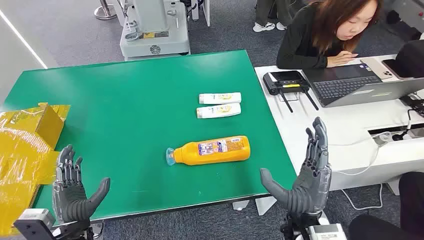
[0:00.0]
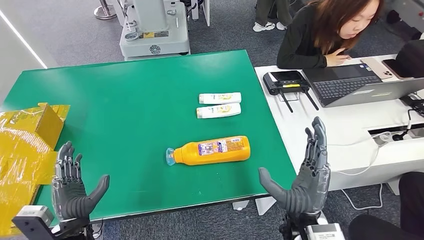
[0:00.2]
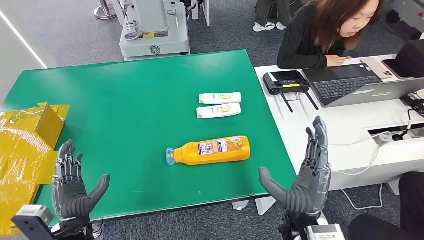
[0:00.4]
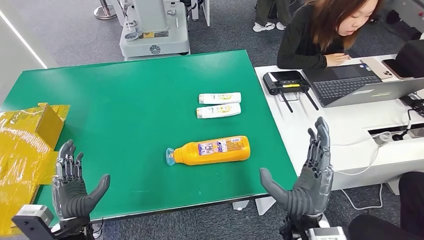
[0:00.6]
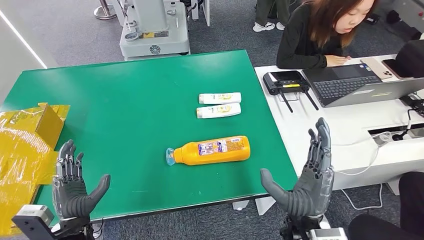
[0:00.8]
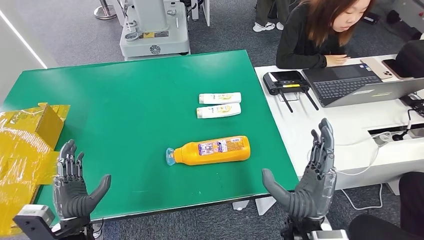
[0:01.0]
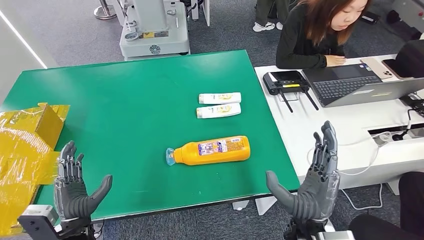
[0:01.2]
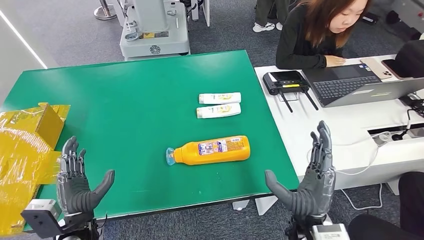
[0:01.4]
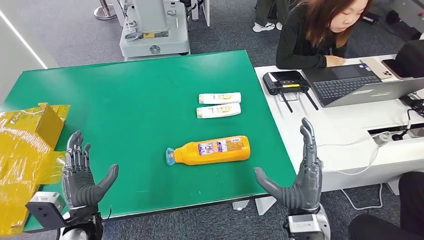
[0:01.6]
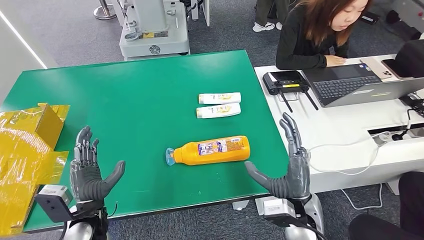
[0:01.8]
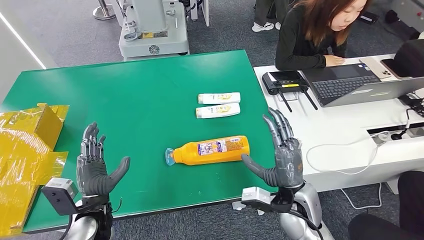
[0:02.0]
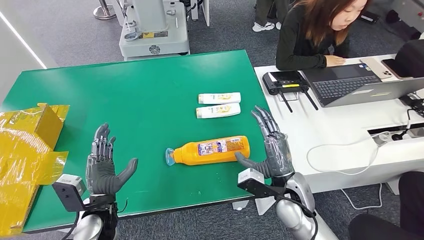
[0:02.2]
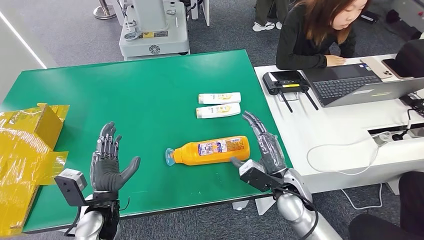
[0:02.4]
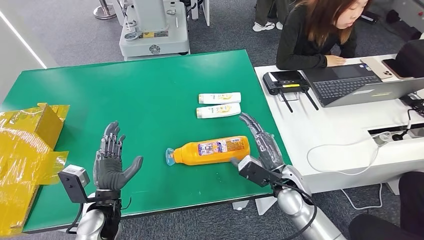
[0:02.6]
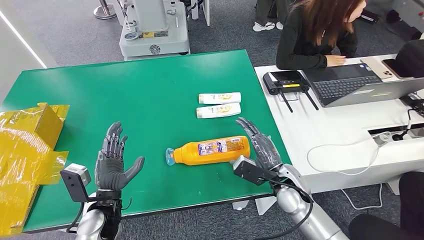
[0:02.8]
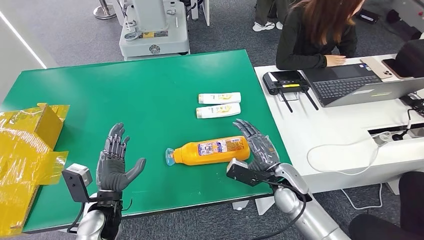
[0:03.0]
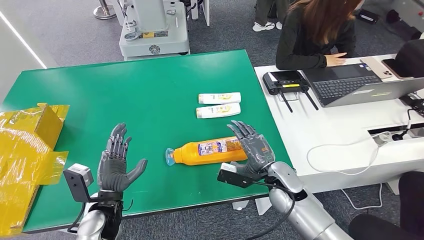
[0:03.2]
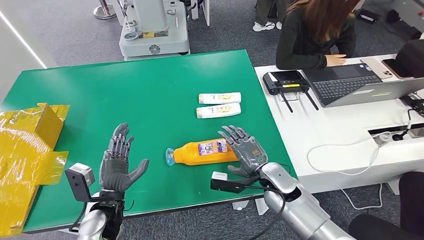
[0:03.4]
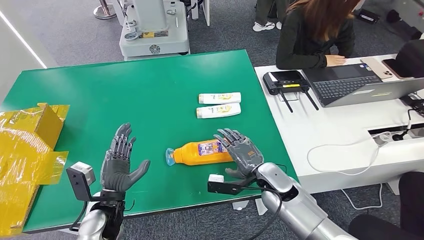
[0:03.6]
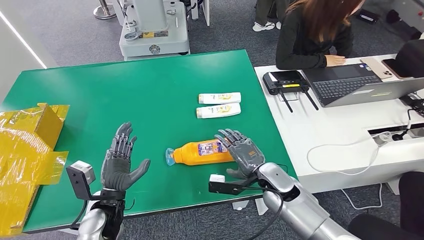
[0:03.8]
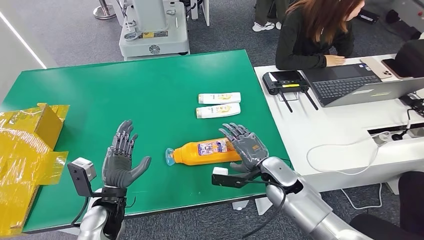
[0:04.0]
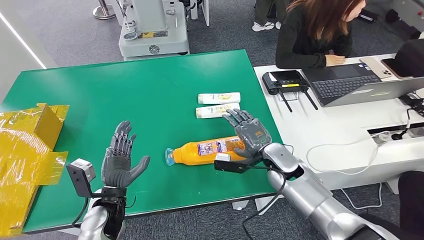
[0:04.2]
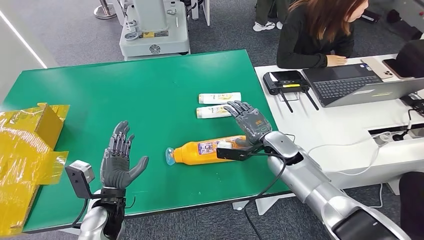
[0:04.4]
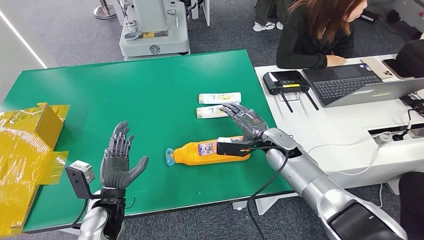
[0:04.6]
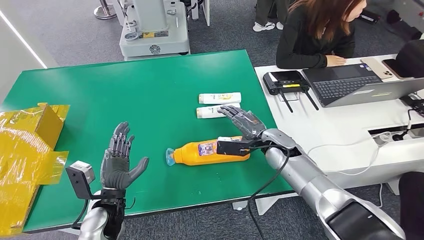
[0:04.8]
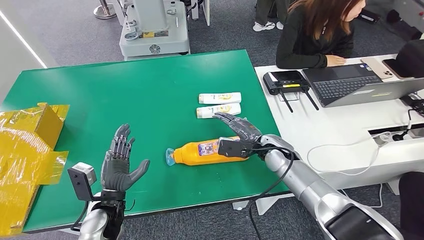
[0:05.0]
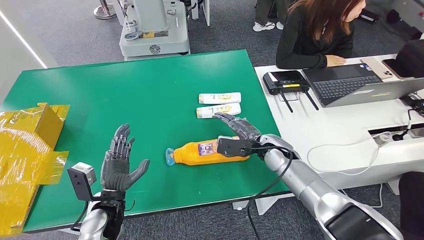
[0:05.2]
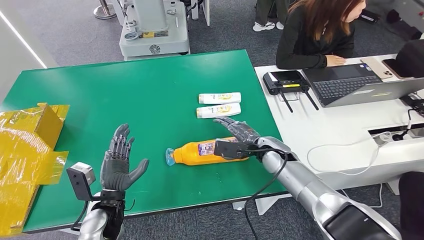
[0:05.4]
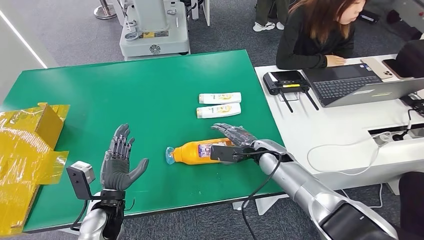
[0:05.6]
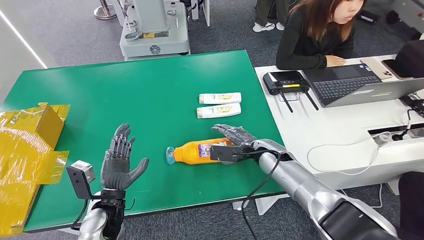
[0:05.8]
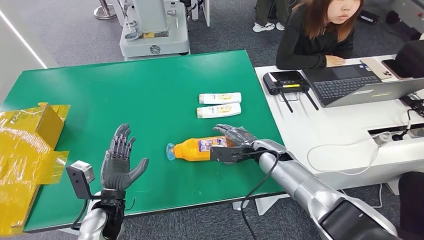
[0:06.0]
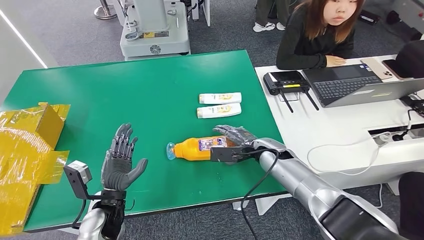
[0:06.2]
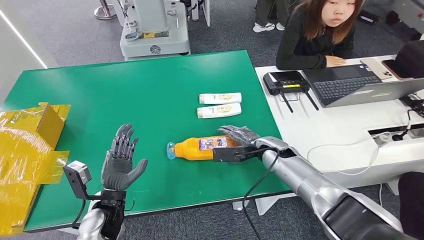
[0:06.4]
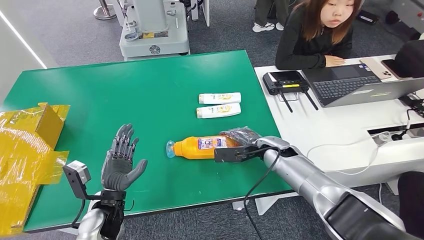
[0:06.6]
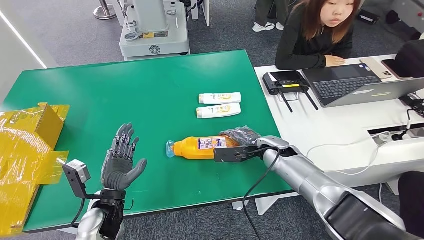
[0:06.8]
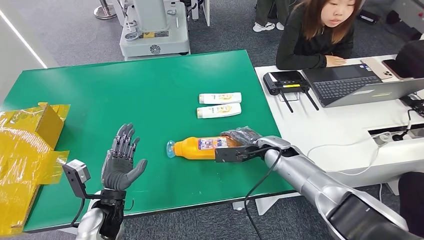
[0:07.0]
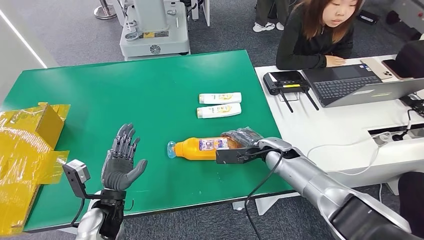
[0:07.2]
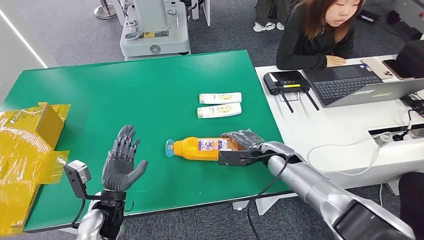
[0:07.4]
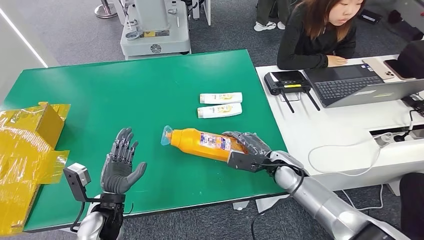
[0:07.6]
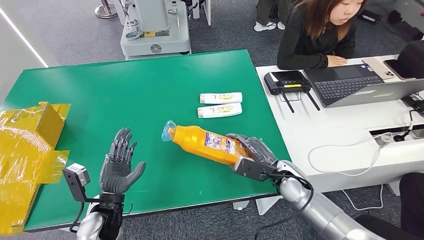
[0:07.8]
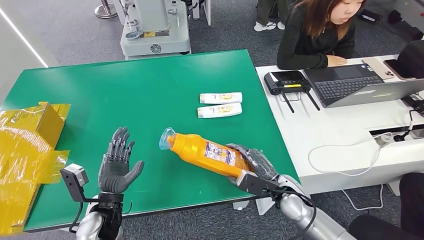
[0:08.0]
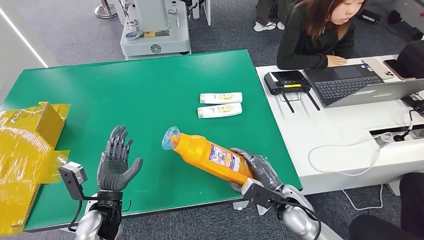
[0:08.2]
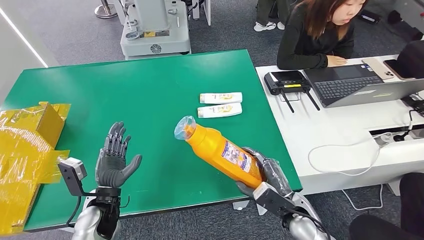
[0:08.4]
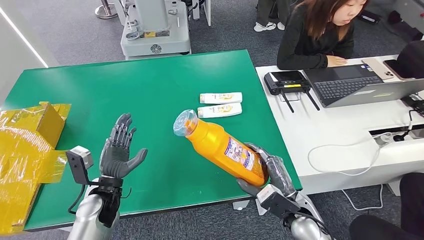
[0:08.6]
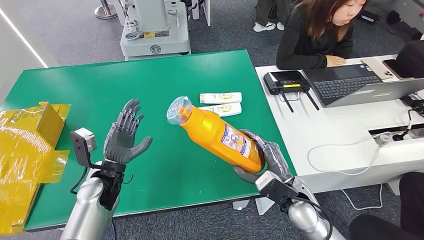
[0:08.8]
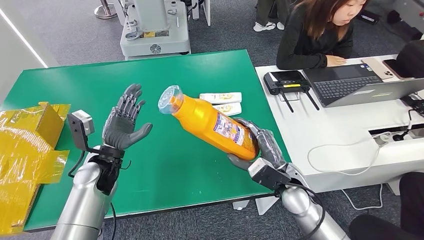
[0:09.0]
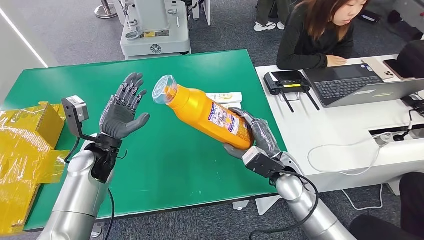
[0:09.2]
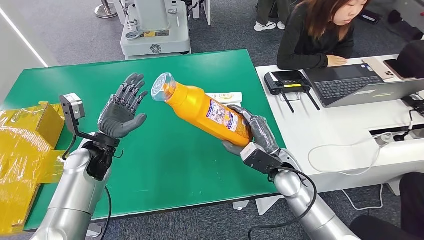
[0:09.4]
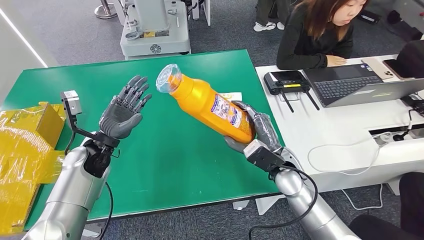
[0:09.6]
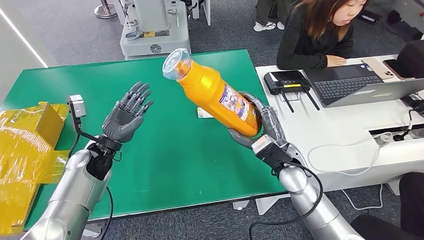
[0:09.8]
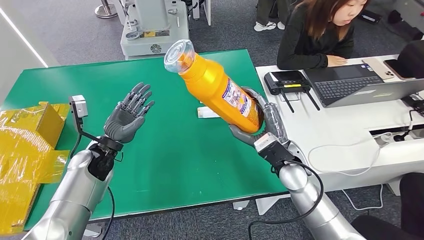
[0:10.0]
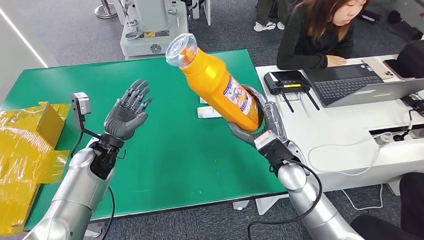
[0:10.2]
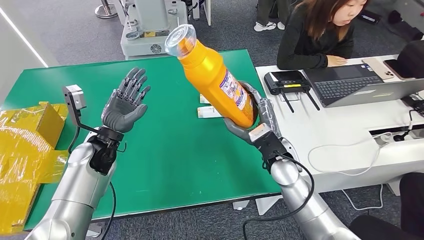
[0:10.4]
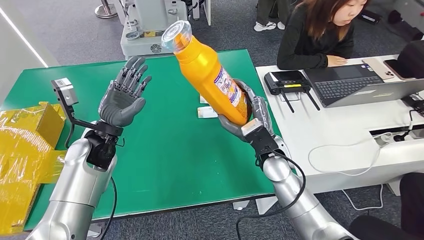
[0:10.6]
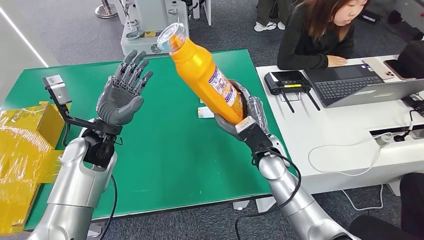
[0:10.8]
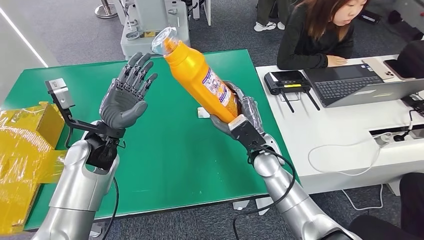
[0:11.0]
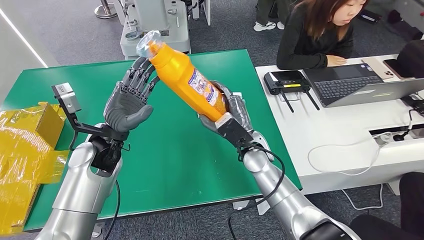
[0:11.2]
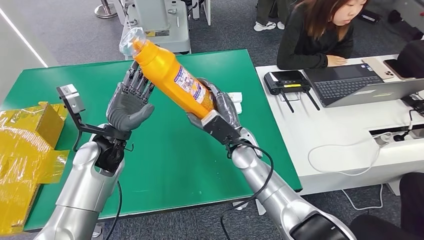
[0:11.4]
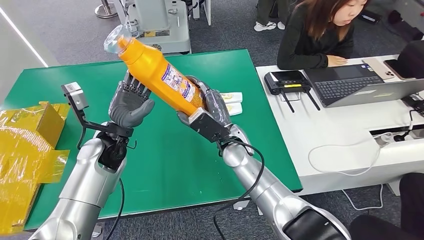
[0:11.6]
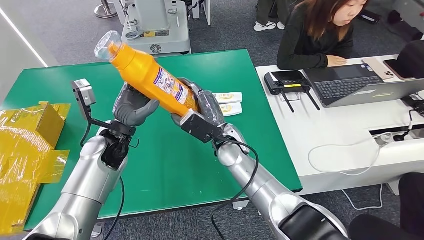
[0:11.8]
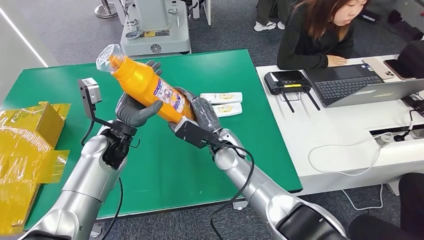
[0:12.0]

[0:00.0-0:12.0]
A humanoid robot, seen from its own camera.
Step, 0:00.0 to 0:08.8: Pick up the bottle from the table.
0:01.6 to 0:03.0: The right hand moves forward, some 10 cm.
0:03.0 to 0:04.4: The right hand moves forward, approximately 10 cm.
0:06.0 to 0:07.6: The right hand changes place by about 5 cm.
0:07.6 to 0:09.0: The right hand heads backward, covering about 5 cm. The left hand travels forward and upward by about 10 cm.
0:09.0 to 0:10.4: The right hand moves forward, approximately 5 cm.

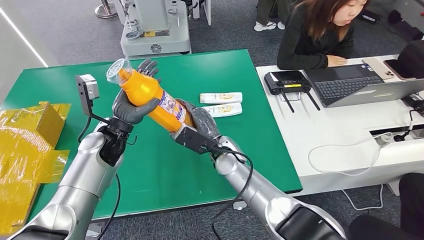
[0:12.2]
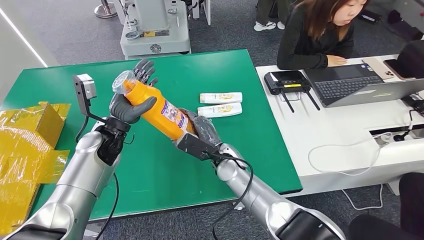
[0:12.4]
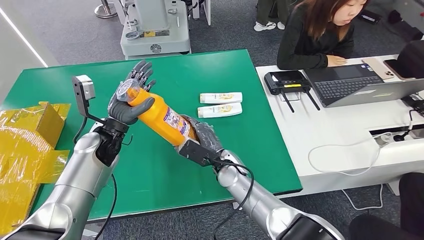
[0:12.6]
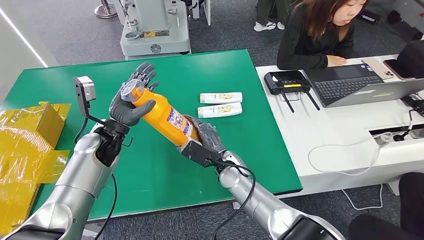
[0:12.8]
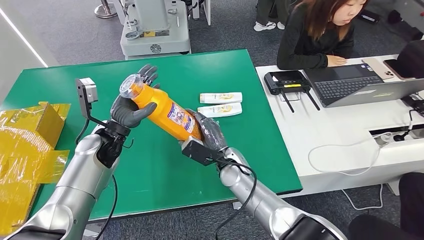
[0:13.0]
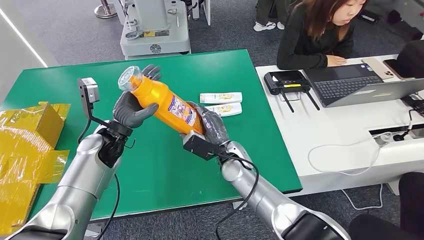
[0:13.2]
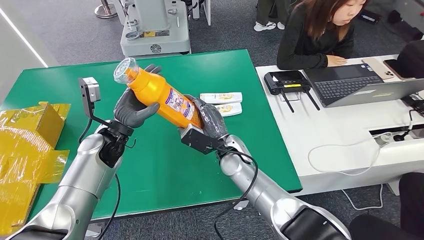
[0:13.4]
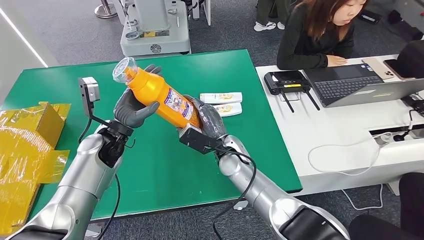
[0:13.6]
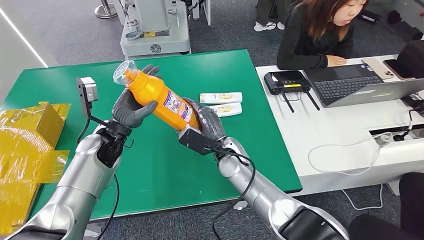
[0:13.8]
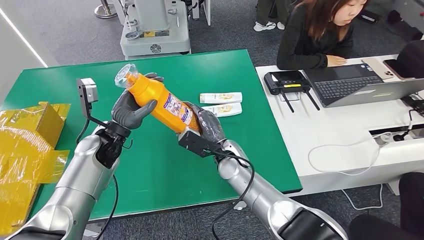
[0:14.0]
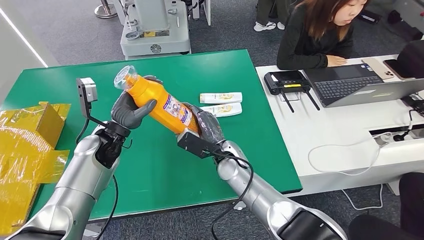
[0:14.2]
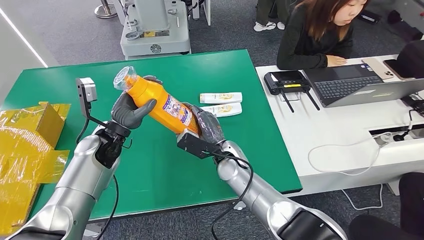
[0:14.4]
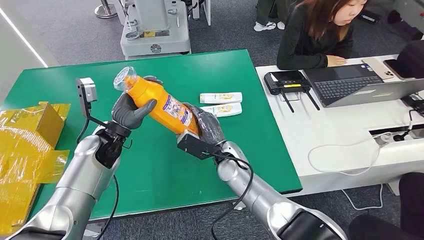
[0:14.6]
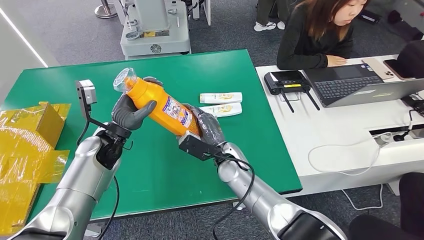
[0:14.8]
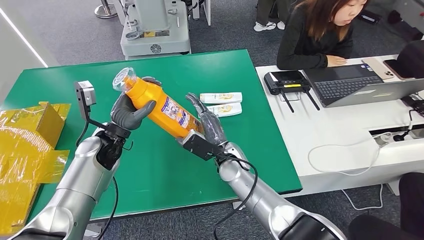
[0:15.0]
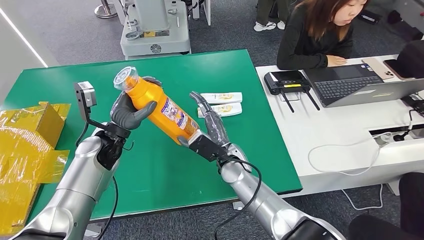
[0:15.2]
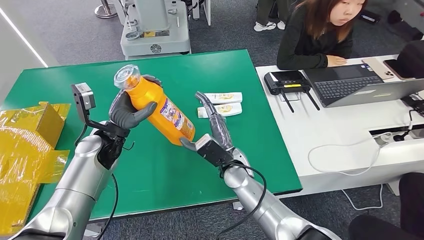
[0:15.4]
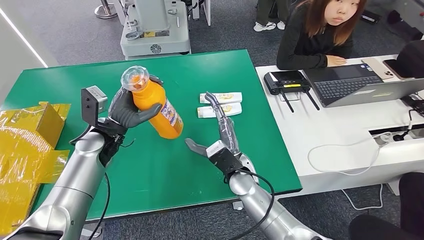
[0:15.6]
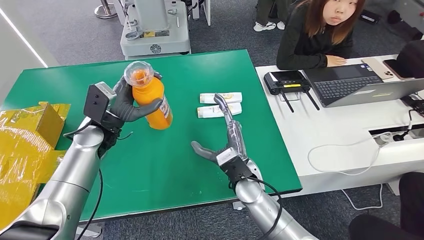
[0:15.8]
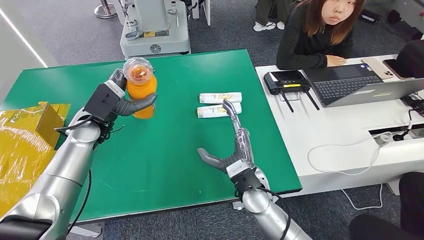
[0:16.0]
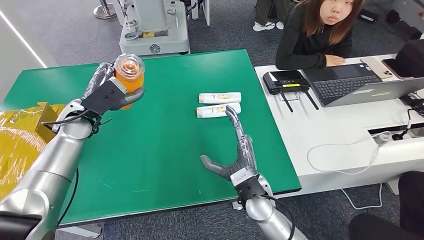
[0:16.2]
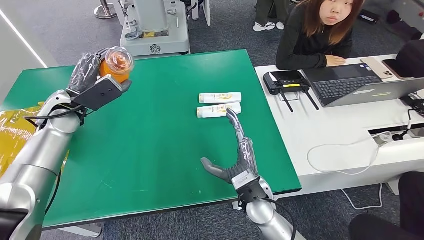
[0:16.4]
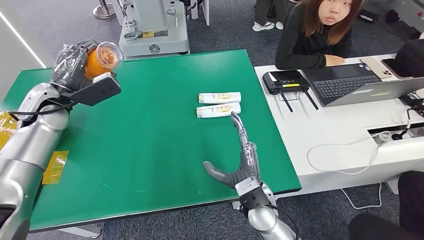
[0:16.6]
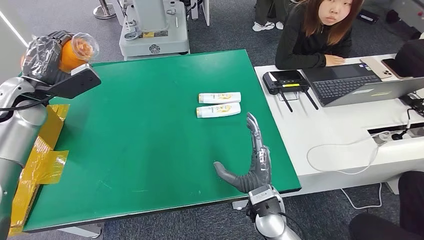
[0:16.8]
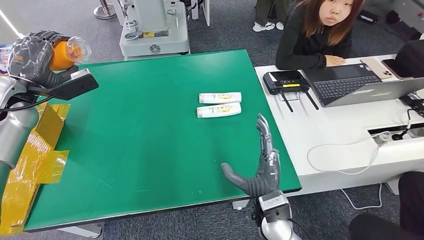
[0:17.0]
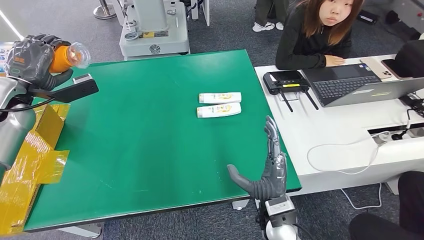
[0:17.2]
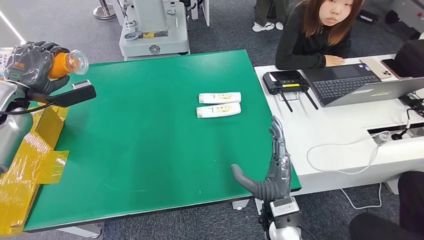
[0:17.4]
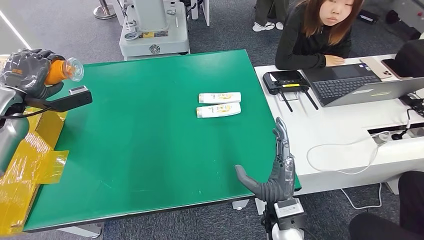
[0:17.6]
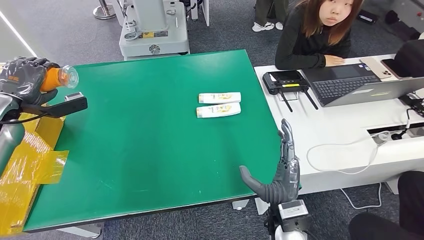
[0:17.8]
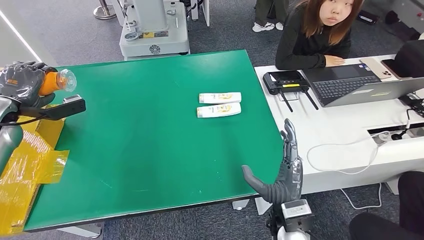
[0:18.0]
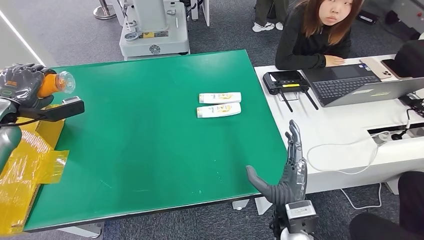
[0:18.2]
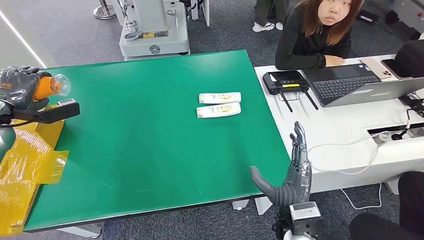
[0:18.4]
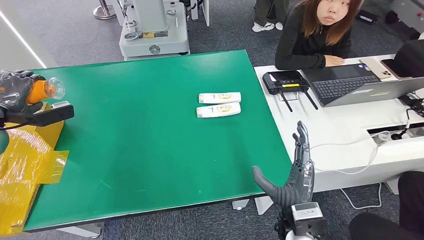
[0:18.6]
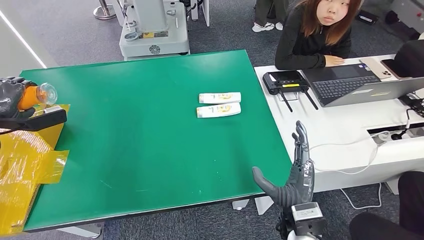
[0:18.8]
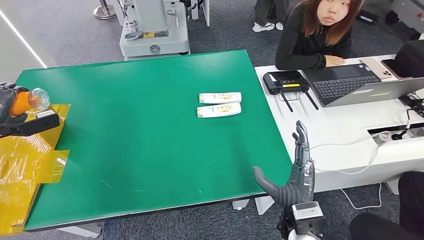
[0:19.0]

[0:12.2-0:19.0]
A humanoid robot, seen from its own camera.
0:12.2 to 0:15.0: There are only small adjustments of the hands.
0:16.2 to 0:17.6: The left hand is displaced to the left by roughly 15 cm. The right hand shifts about 5 cm backward.
0:17.6 to 0:19.0: The left hand shifts about 10 cm to the left.
